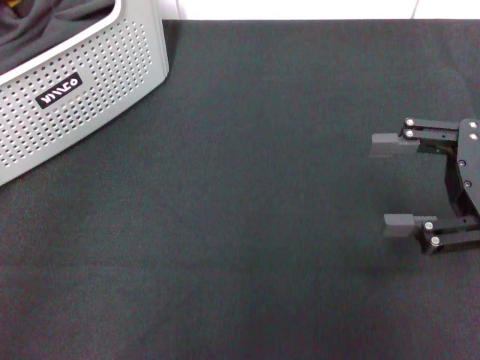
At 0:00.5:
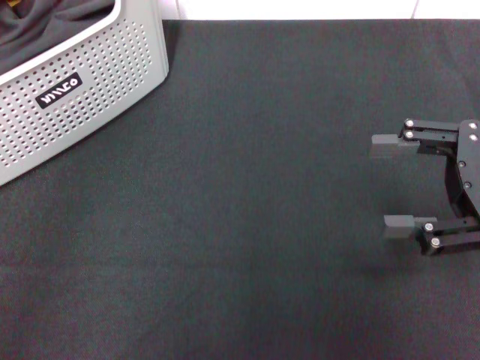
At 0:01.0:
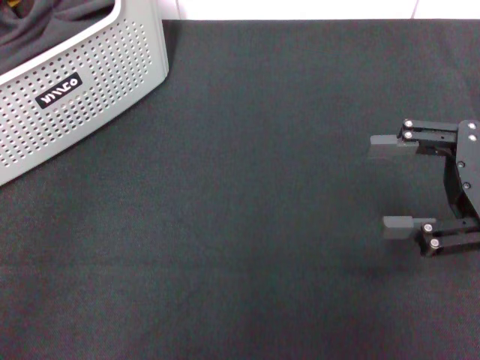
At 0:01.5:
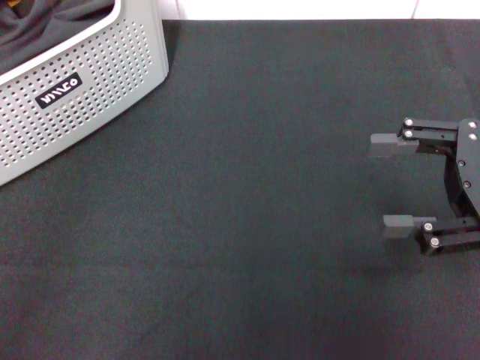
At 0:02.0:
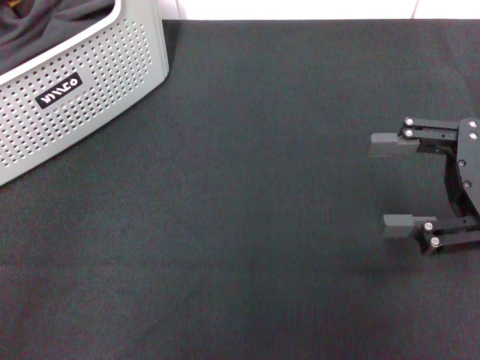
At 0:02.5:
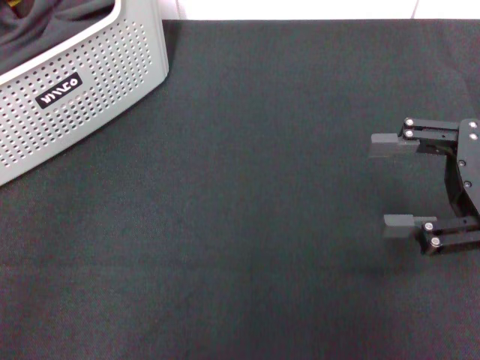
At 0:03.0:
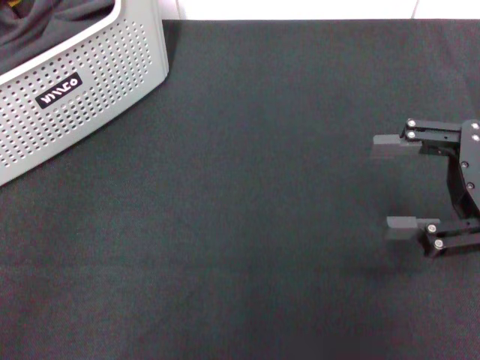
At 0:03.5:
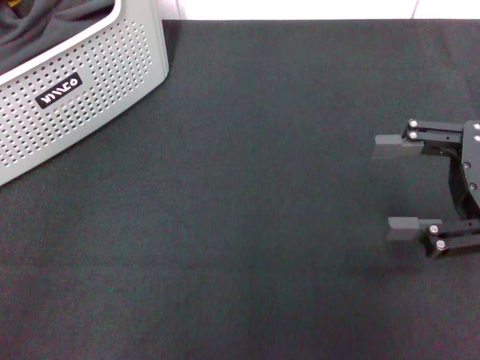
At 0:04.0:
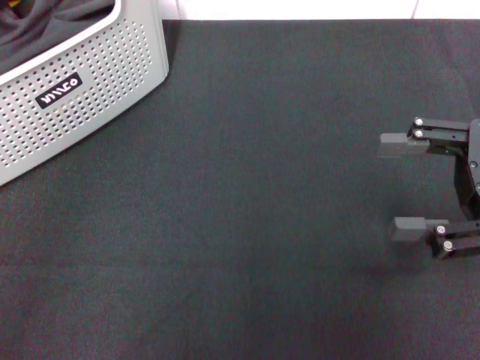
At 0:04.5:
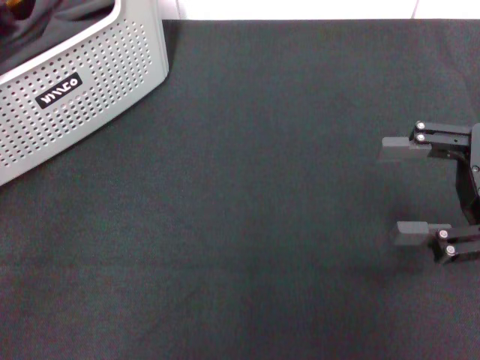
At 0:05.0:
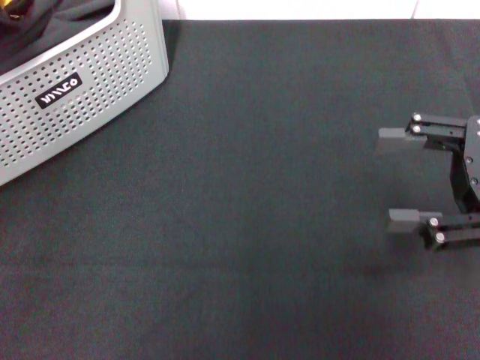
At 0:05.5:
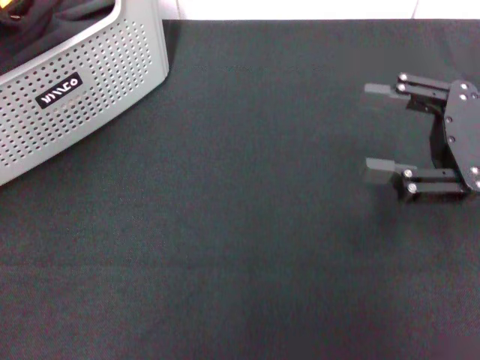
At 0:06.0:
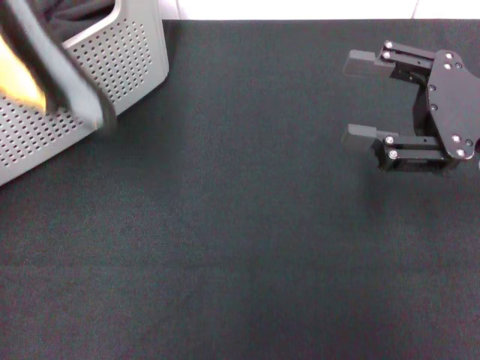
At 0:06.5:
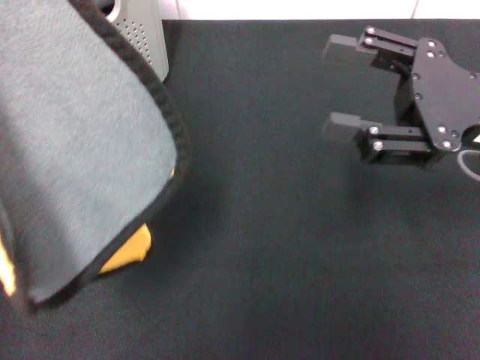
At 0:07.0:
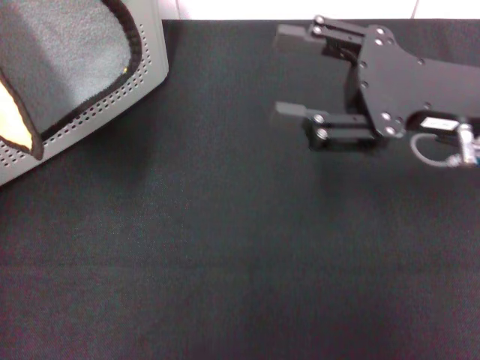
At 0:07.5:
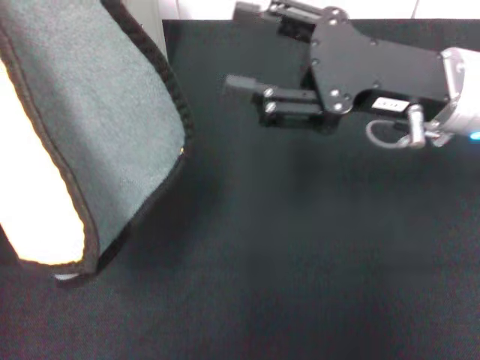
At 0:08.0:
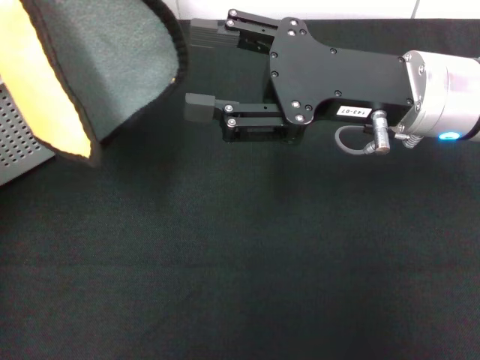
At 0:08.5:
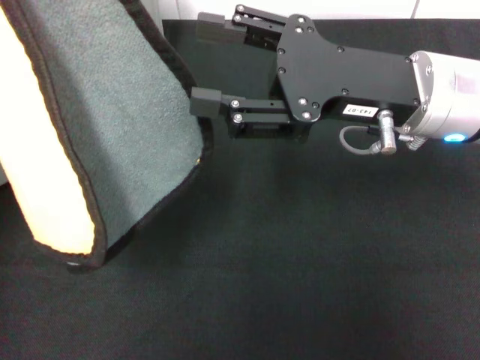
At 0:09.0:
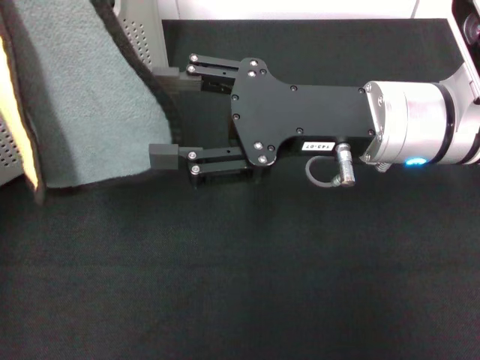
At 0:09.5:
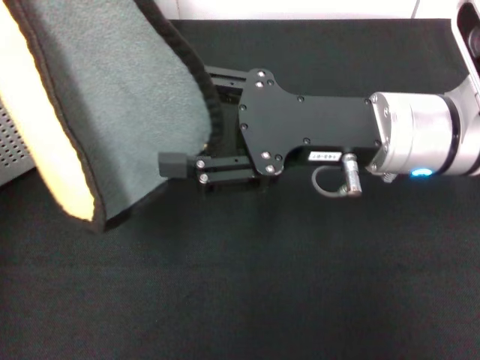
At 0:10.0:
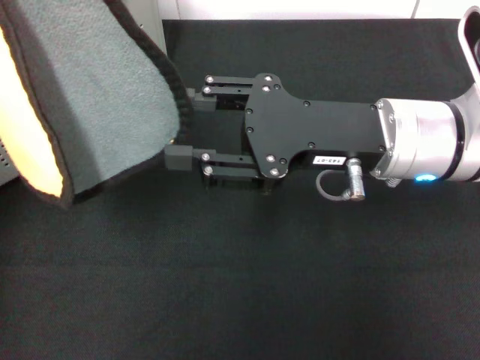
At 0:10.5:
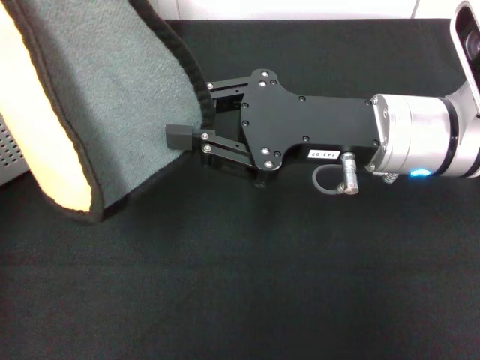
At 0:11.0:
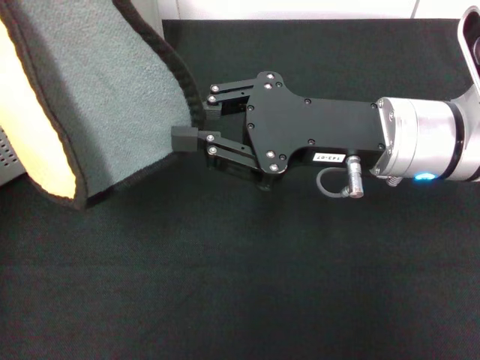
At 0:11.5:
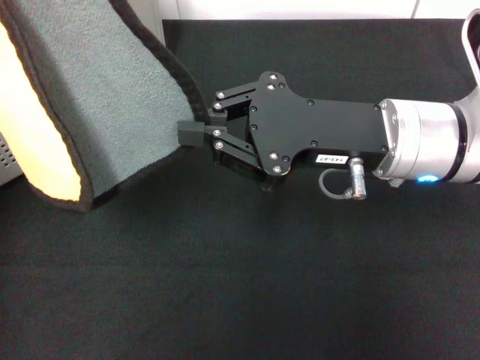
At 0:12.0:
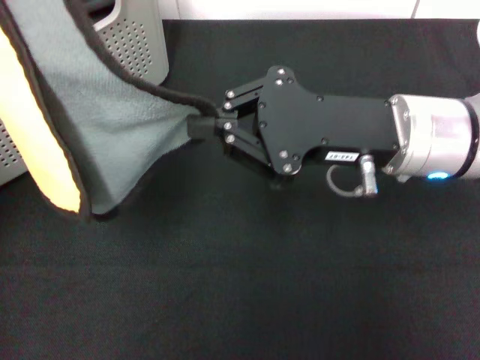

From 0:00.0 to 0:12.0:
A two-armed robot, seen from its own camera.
Task of the whole recording: pick up the towel from the storage box and lay it flat on the black tablecloth.
Step, from 0:00.0 to 0:03.5: Pick up a towel with the left gripper.
Step, from 0:04.0 to 0:11.5: Spread the towel flat with the left gripper.
From 0:04.0 to 0:06.0: The left gripper is displaced upward, to the right and forward by approximately 20 cm.
From 0:06.0 to 0:08.0: The right gripper goes about 10 cm to the left.
From 0:10.0 to 0:12.0: The right gripper closes.

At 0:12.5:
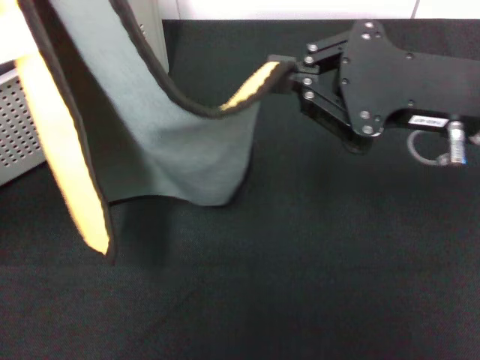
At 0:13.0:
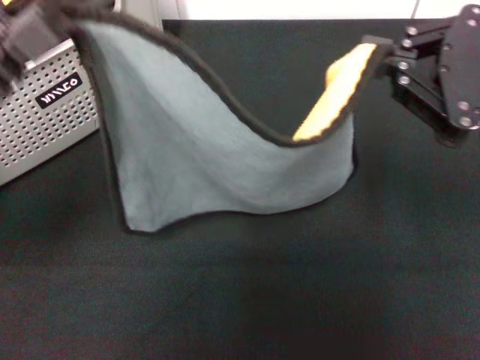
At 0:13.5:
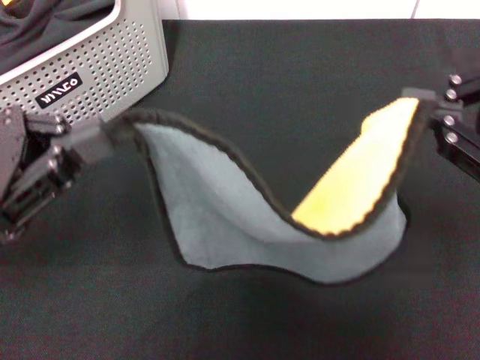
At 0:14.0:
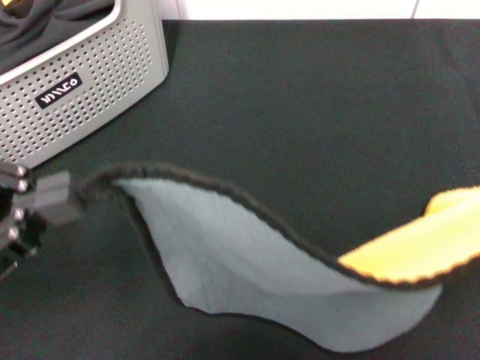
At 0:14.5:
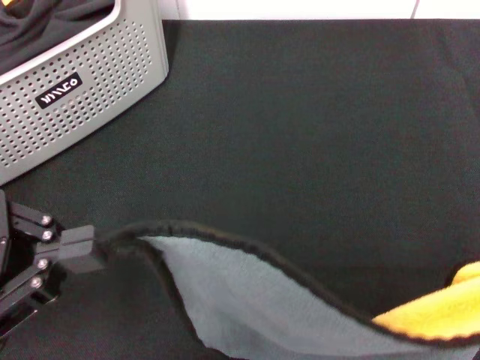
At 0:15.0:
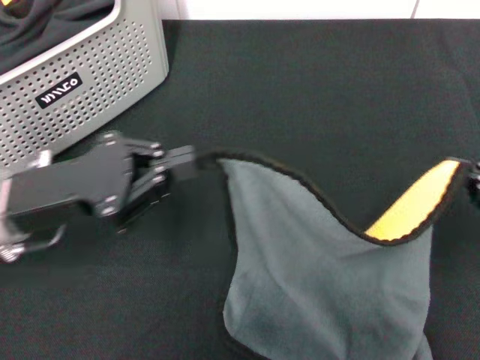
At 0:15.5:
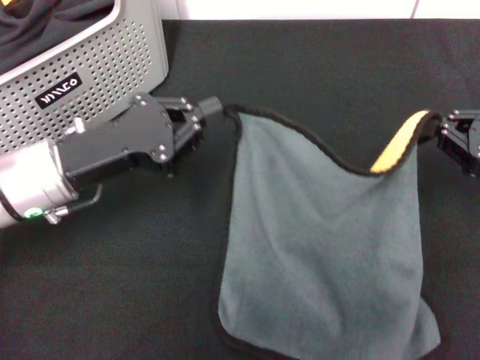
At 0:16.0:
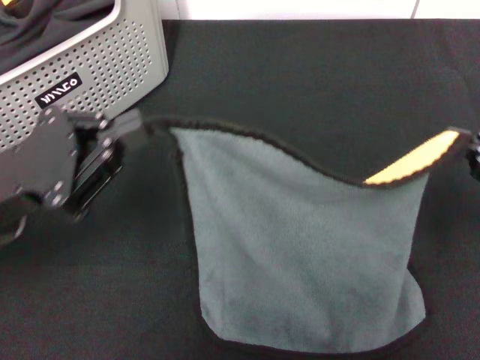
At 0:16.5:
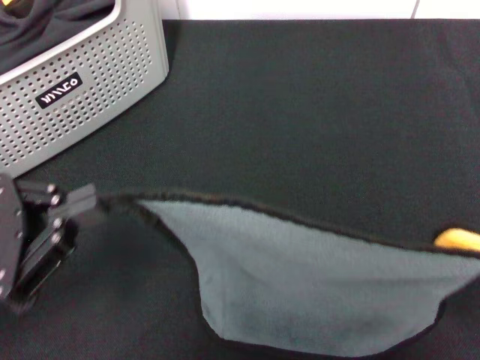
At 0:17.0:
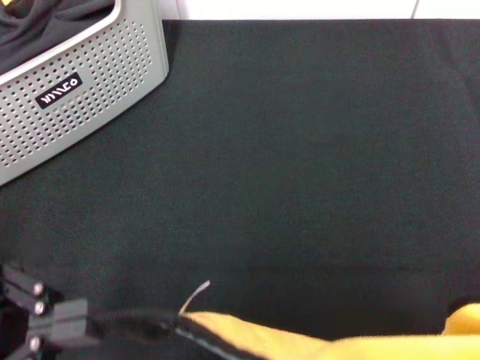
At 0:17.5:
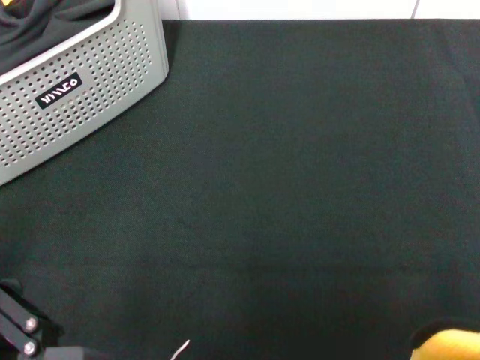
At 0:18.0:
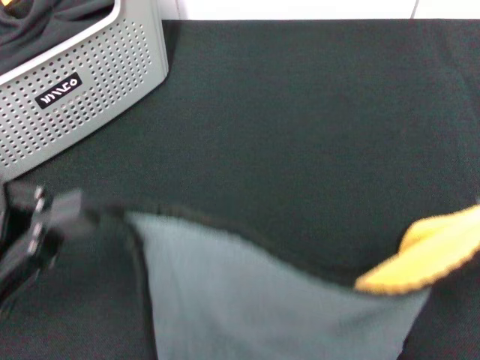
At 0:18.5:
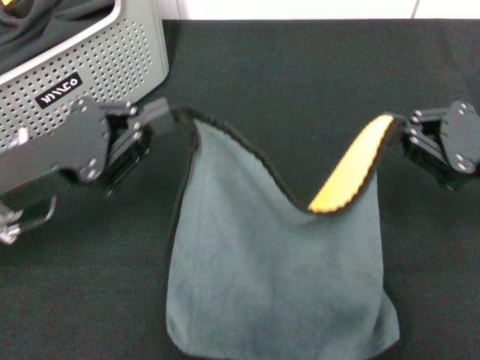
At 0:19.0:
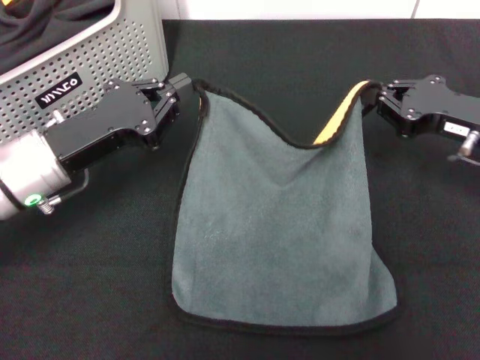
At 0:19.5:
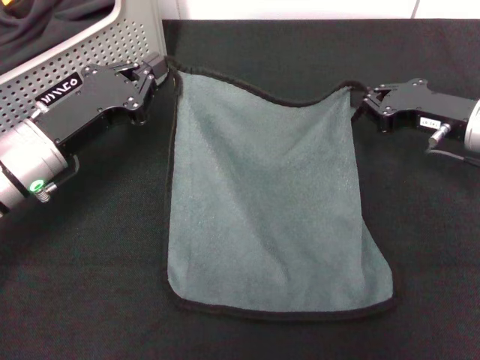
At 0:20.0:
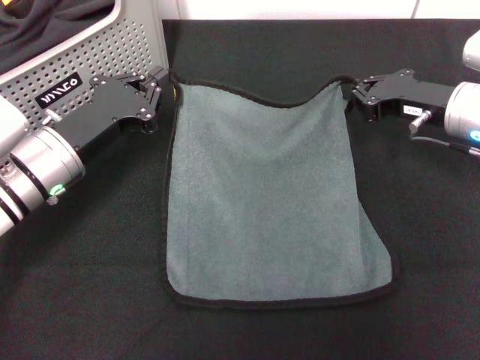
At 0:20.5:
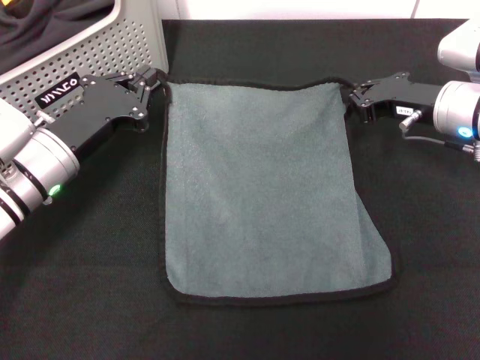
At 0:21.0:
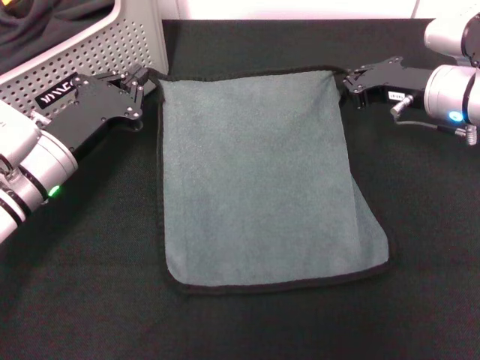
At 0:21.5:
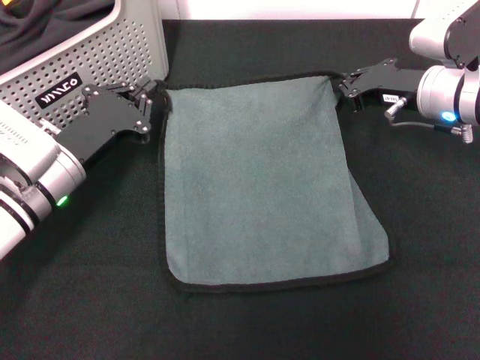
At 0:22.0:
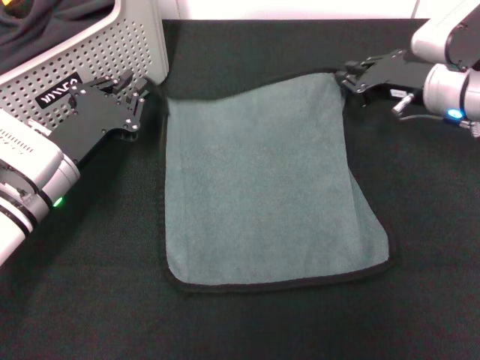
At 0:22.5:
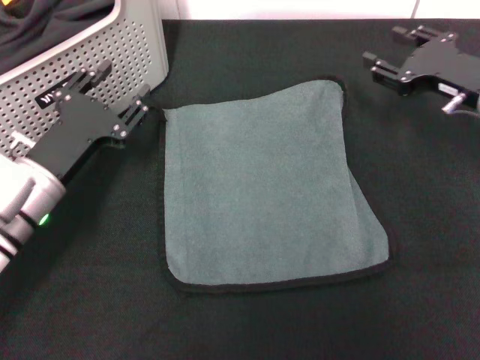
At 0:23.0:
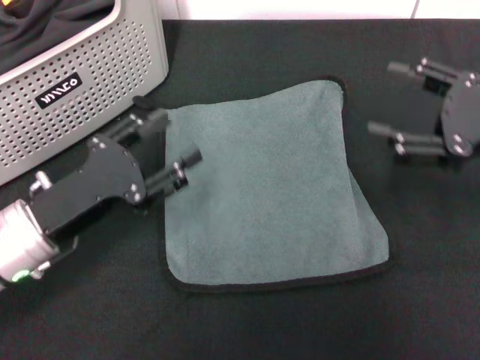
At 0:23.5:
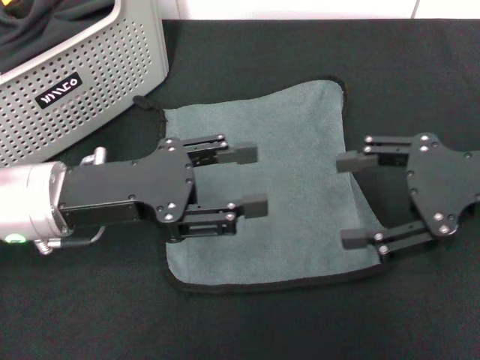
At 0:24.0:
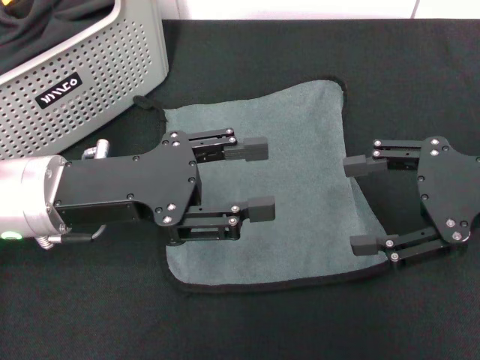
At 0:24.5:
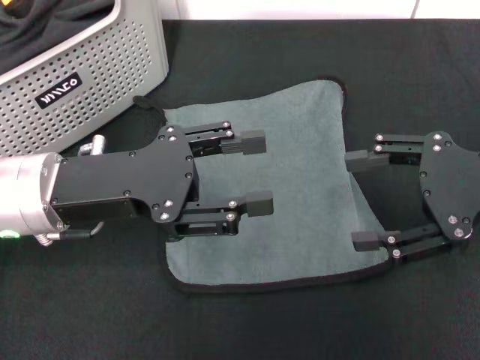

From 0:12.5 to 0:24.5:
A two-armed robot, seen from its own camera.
Task of the whole recording: pick up the towel from the storage box and lay it flat on the black tablecloth.
Step, from 0:12.5 to 0:22.0: Spread the towel flat with the right gripper.
From 0:12.5 to 0:14.5: The left gripper travels backward by some 10 cm, while the right gripper heads backward and to the right, covering about 20 cm.
From 0:14.5 to 0:16.5: The left gripper moves roughly 10 cm forward and comes back, while the right gripper moves approximately 15 cm forward and comes back.
From 0:16.5 to 0:18.5: The right gripper is displaced forward, downward and to the left by about 15 cm; the left gripper heads forward, covering approximately 10 cm.
From 0:18.5 to 0:20.5: The left gripper travels downward and forward by approximately 10 cm. Meanwhile the right gripper goes about 15 cm forward and to the left.
From 0:20.5 to 0:22.5: The right gripper opens its fingers; the left gripper opens its fingers.
From 0:22.5 to 0:24.5: The right gripper travels backward and upward by some 15 cm, and opens up; the left gripper travels upward by approximately 10 cm, and opens.
